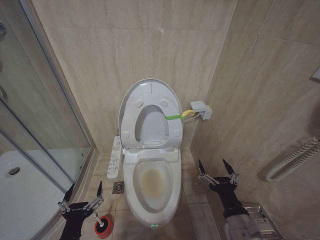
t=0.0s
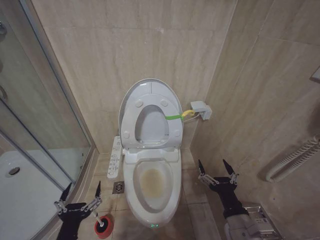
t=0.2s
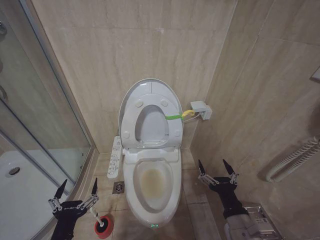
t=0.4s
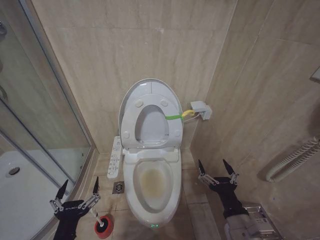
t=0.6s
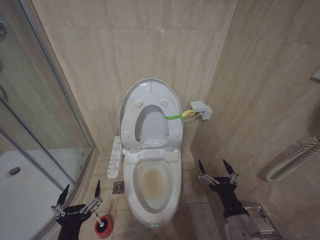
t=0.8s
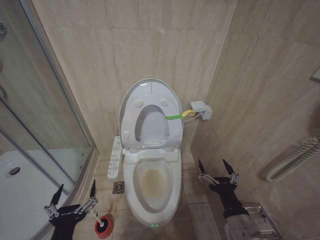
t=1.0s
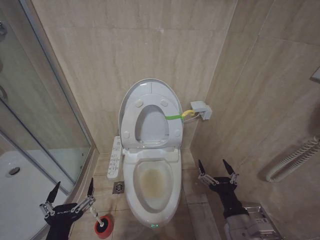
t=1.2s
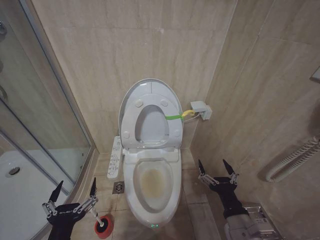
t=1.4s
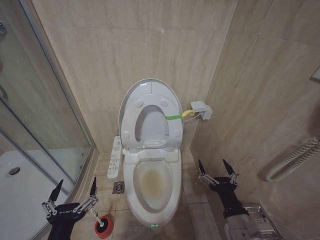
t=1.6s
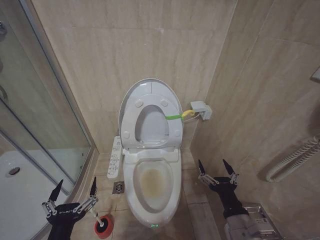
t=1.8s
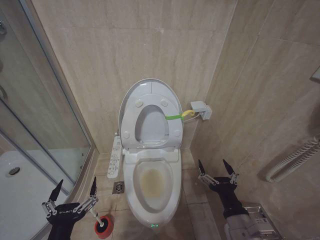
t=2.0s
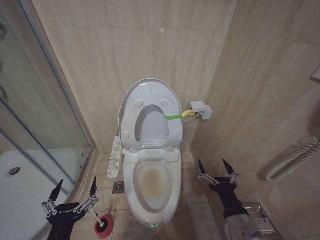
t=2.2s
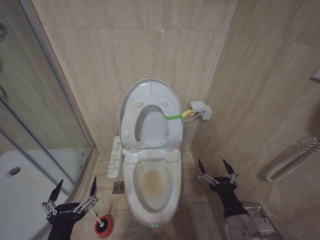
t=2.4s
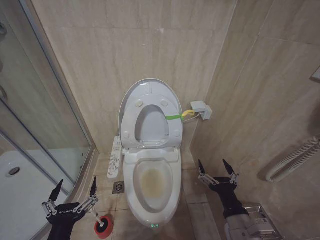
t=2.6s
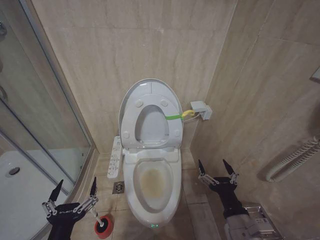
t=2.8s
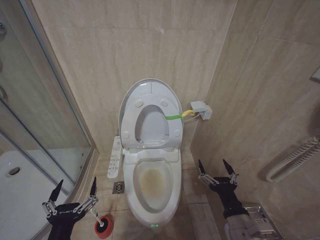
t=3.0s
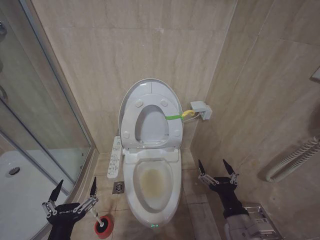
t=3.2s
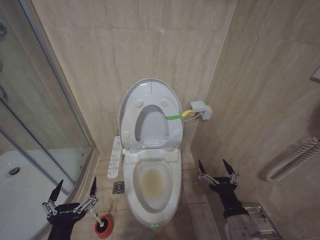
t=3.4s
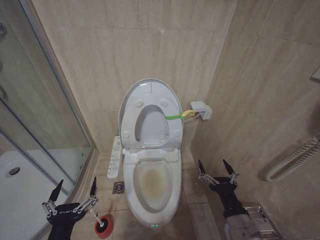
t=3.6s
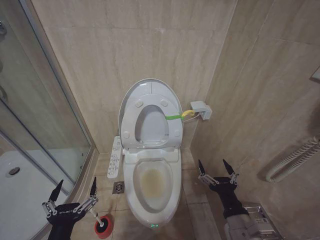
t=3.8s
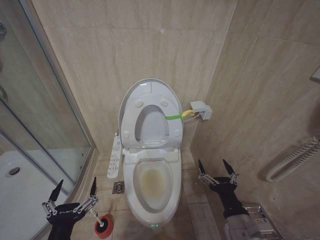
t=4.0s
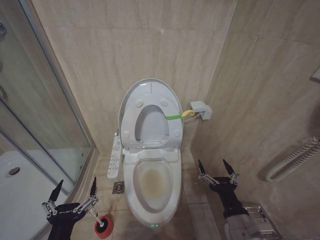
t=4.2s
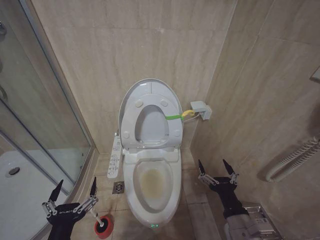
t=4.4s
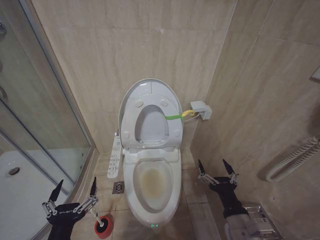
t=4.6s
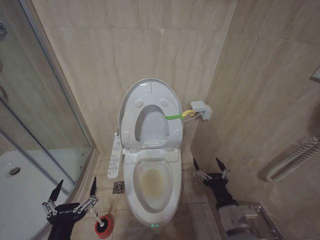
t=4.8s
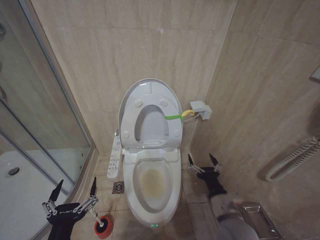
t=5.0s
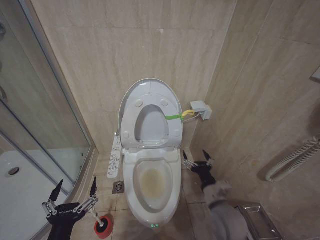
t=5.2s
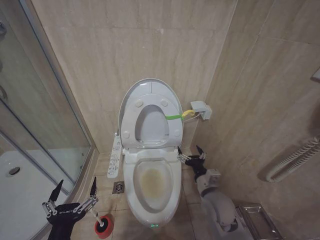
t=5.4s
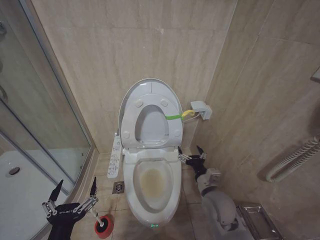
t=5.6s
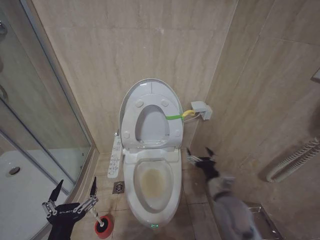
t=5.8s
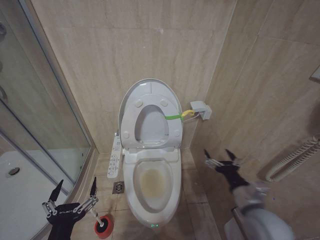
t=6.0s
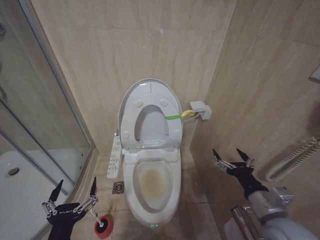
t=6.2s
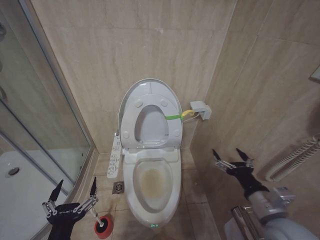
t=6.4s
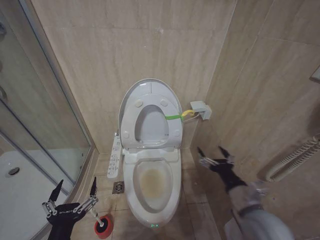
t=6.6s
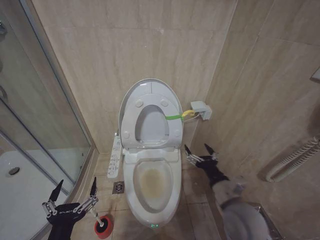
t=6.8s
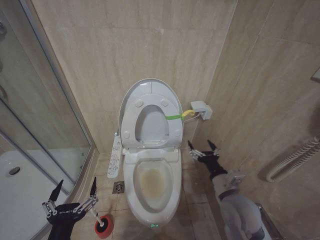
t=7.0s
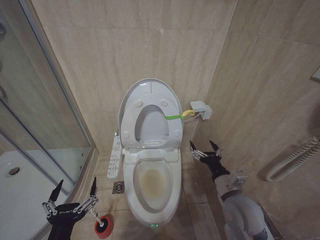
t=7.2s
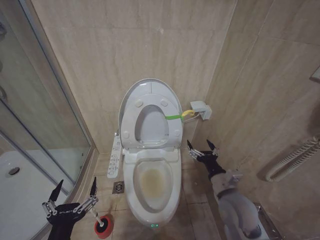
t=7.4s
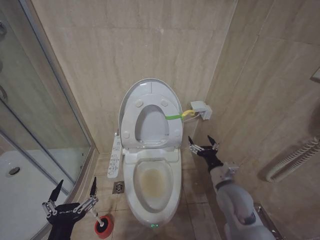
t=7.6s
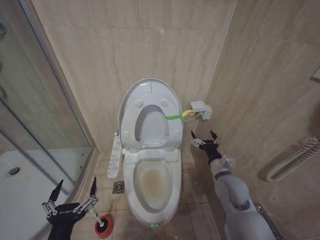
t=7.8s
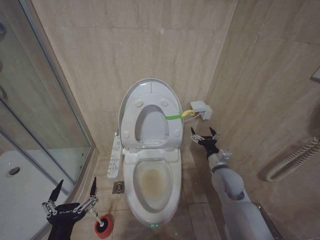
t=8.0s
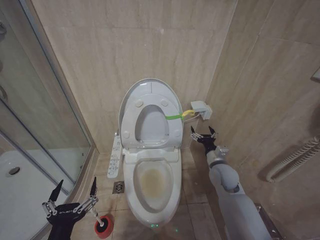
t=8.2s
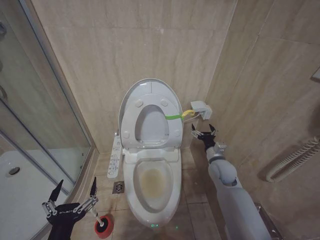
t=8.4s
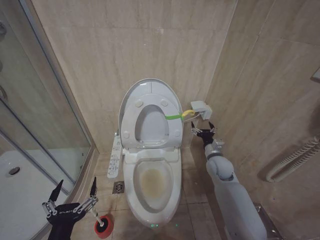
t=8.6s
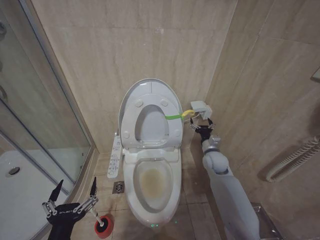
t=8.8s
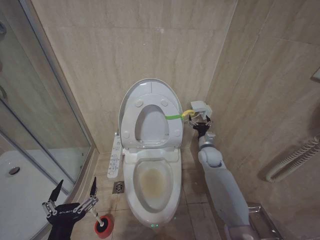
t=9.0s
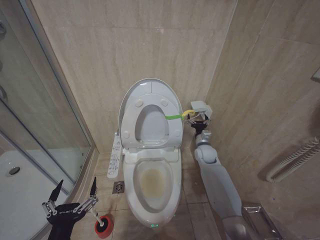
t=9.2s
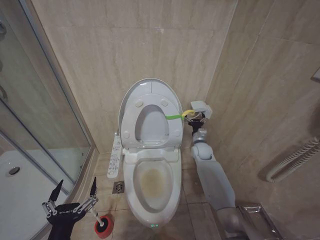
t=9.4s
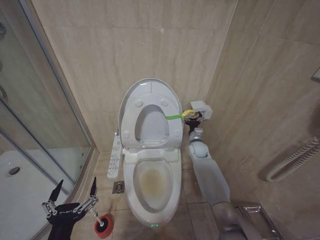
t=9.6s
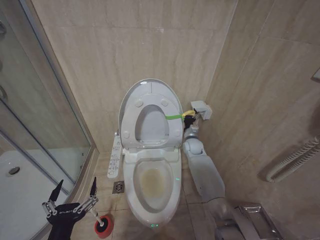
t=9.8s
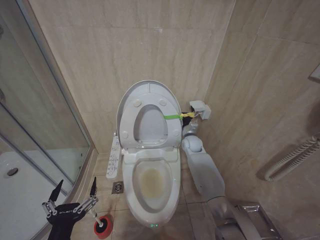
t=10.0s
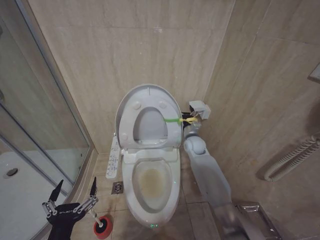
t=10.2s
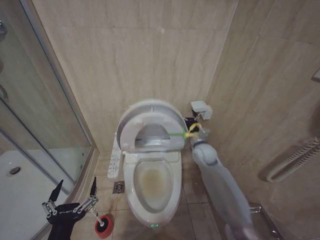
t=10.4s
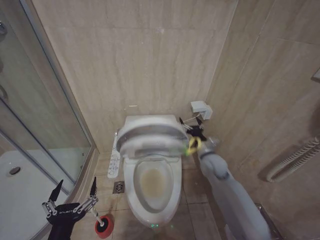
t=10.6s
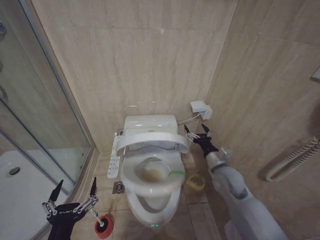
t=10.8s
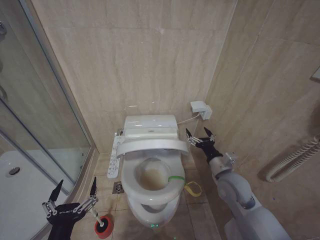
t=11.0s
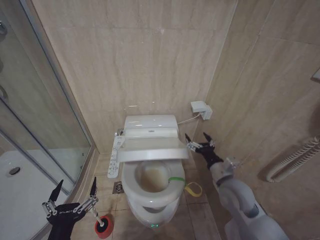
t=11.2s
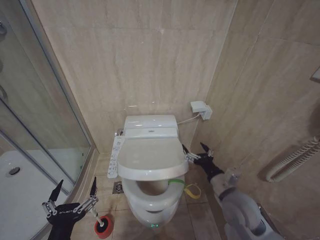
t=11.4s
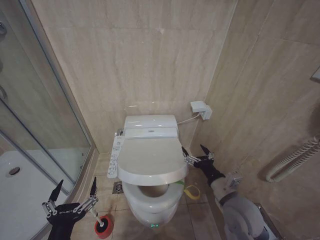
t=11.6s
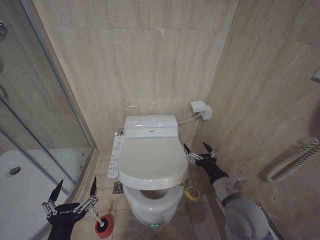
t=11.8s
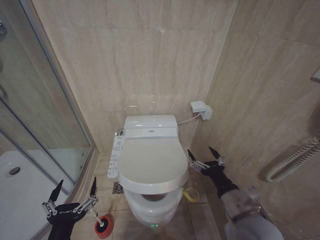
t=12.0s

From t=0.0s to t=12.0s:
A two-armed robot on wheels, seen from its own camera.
Task of the whole recording: Open the toilet lid, clean the toilet bowl with a toilet brush, close the toilet lid, and flush.
From t=0.0s to t=1.6s: The left gripper is displaced upward by approximately 5 cm.
From t=1.6s to t=4.4s: Both grippers stay put.
From t=4.4s to t=6.0s: The right gripper heads forward, covering about 10 cm.
From t=7.6s to t=9.0s: The right gripper shifts roughly 20 cm forward.
From t=9.0s to t=10.4s: The right gripper is displaced to the left by roughly 5 cm.
From t=10.4s to t=12.0s: The right gripper travels backward by approximately 30 cm.

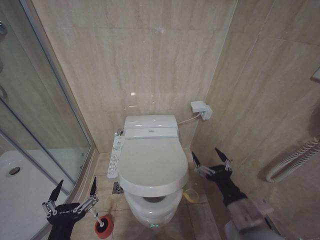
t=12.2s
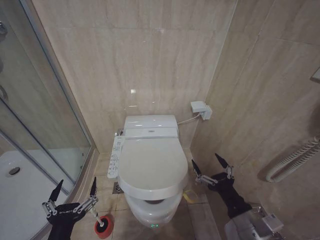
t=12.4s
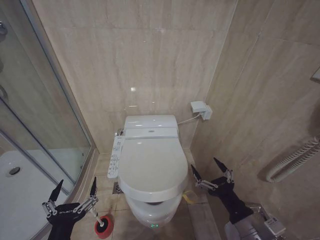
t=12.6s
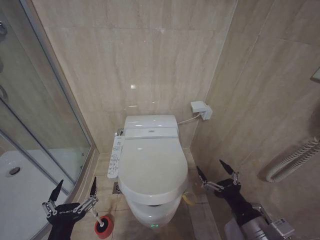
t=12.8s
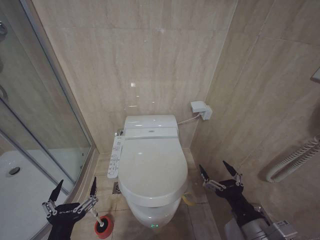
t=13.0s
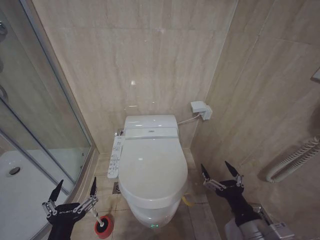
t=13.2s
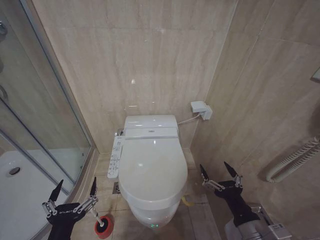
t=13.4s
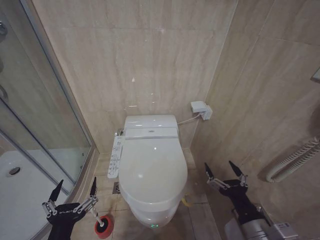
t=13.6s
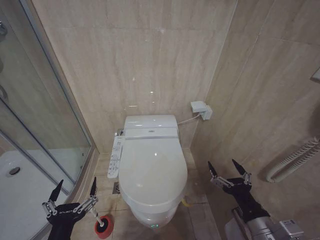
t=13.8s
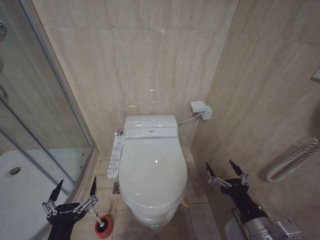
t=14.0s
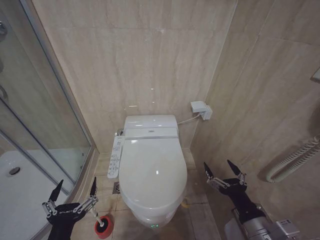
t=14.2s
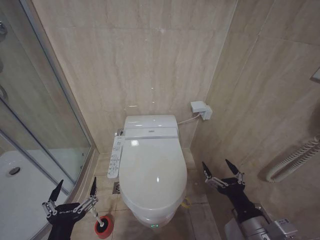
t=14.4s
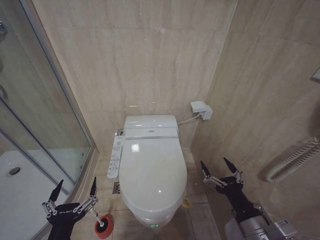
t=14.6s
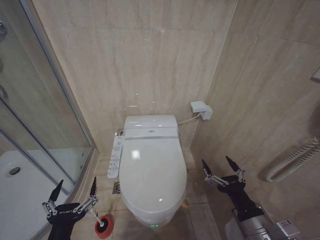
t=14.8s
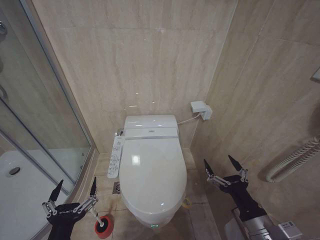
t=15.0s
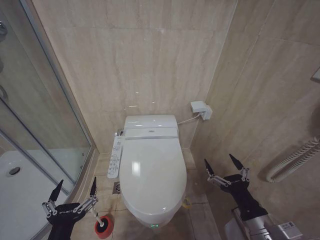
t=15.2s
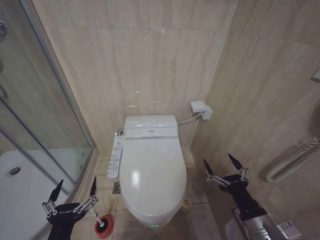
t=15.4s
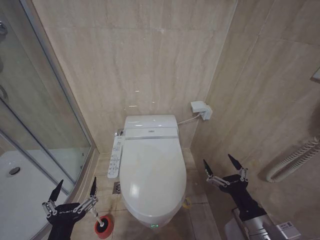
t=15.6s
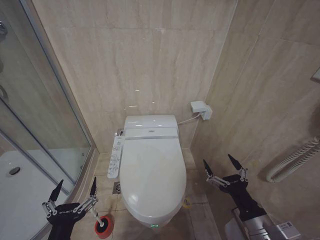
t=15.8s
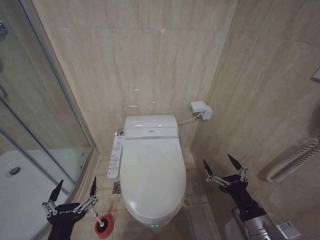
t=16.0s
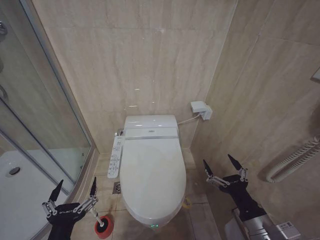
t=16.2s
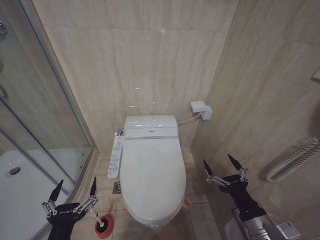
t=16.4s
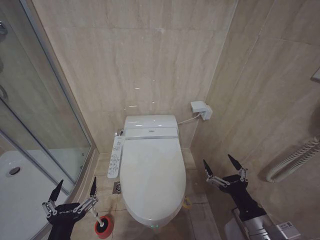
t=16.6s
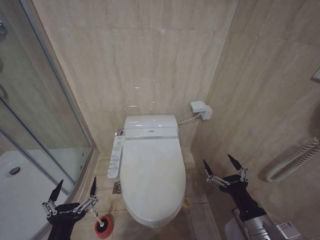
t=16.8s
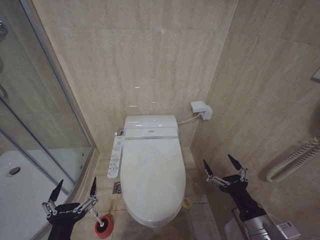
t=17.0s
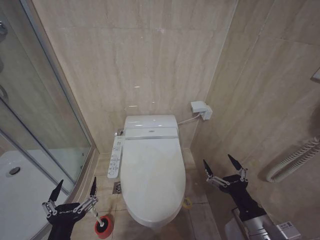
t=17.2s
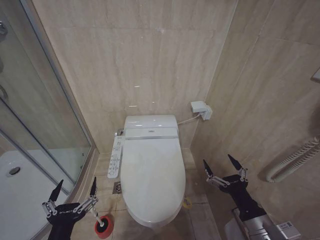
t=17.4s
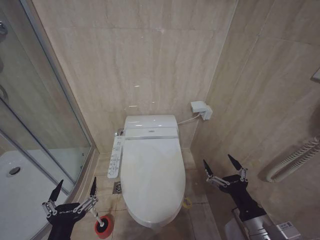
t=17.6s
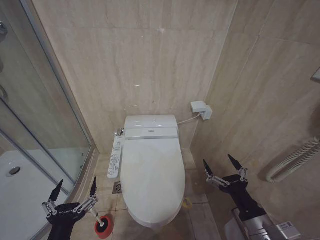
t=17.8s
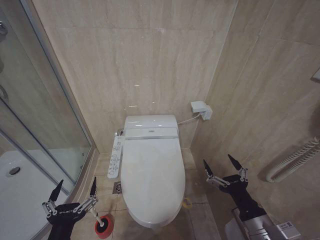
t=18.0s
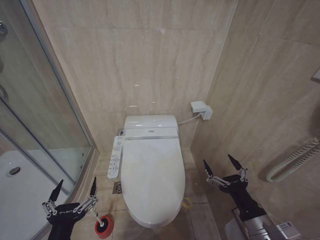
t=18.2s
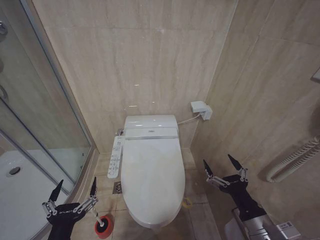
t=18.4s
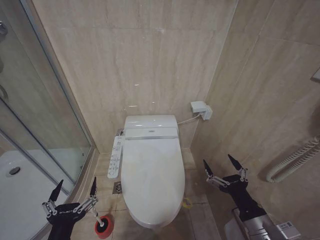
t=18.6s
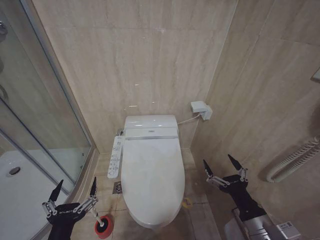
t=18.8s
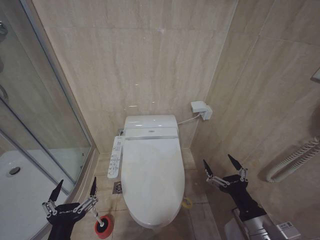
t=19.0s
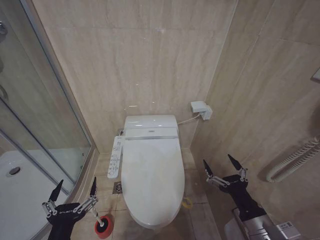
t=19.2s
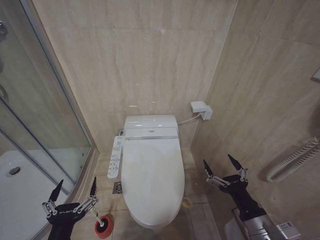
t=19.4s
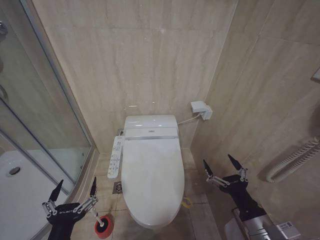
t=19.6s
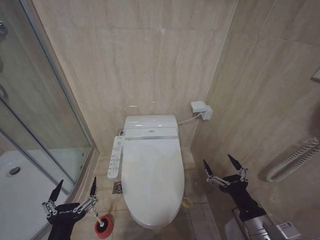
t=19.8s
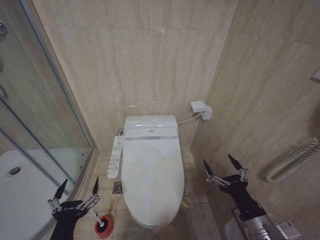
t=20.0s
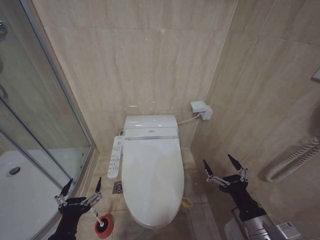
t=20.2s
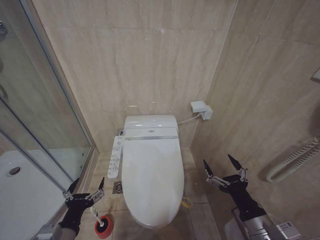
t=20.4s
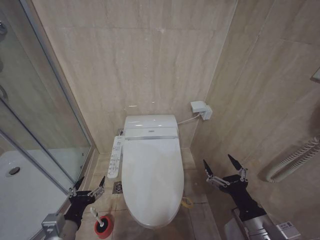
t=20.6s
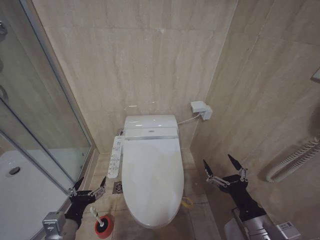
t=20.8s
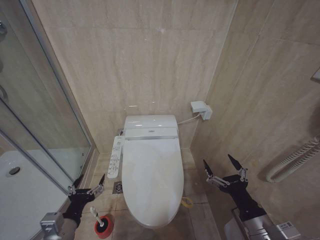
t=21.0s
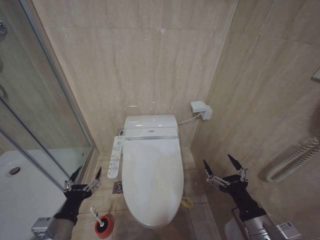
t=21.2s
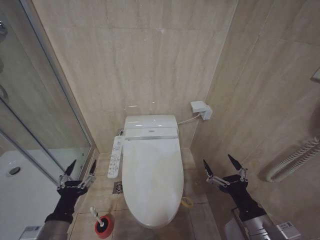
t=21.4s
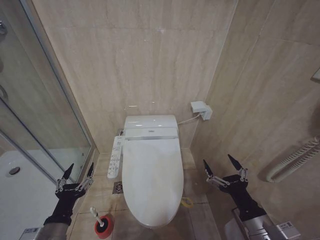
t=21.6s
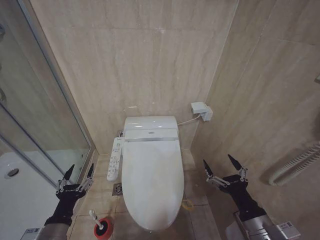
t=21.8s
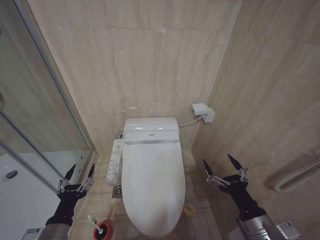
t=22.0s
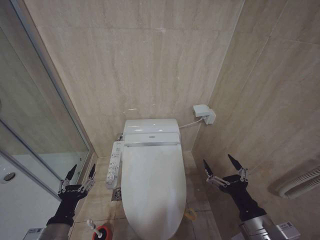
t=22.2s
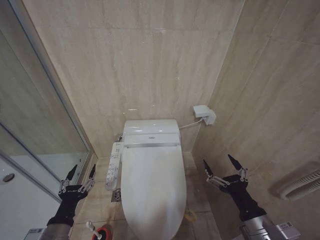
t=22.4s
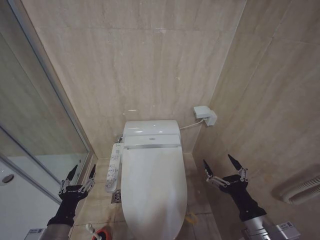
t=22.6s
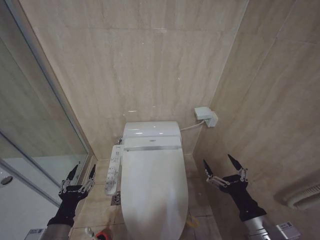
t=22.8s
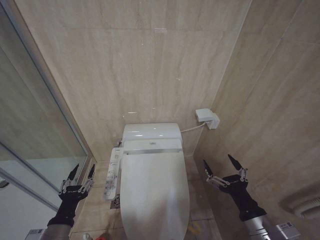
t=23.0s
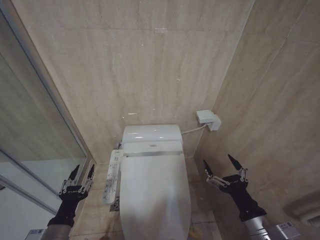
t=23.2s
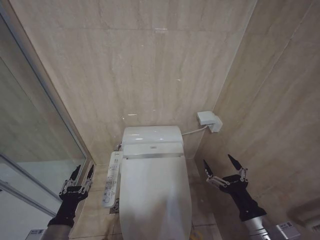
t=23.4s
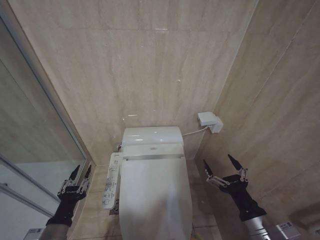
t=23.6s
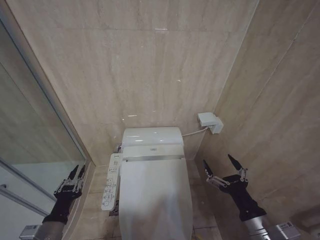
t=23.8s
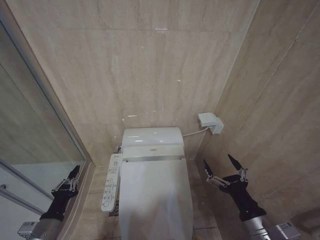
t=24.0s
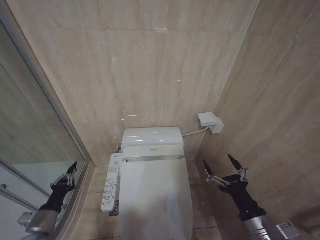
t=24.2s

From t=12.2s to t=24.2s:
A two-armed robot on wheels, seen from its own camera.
Task of the whole recording: Open the toilet lid, clean the toilet bowl with a toilet brush, close the toilet lid, and flush.
From t=12.2s to t=13.8s: The right gripper ends up some 5 cm from where it was.
From t=13.8s to t=15.2s: The grippers make only small movements.
From t=15.2s to t=19.8s: The two grippers keep their place.
From t=19.8s to t=21.2s: The left gripper travels forward by roughly 10 cm.
From t=21.2s to t=22.6s: There are only small adjustments of the grippers.
From t=22.6s to t=24.2s: The left gripper goes about 10 cm to the left and downward, and closes its fingers.
